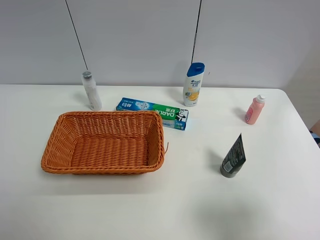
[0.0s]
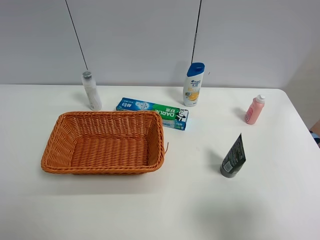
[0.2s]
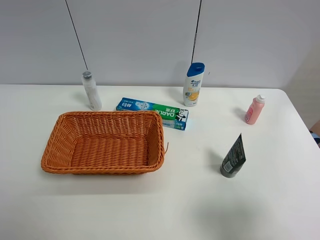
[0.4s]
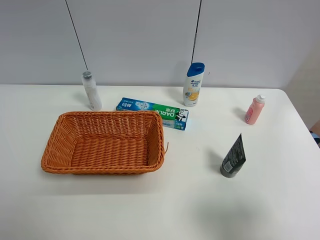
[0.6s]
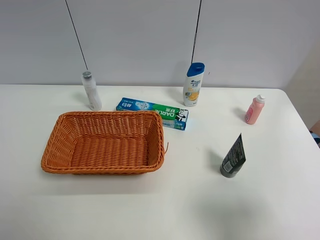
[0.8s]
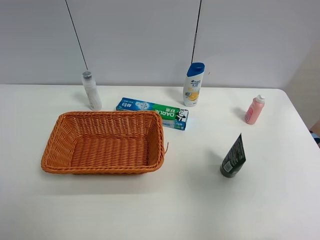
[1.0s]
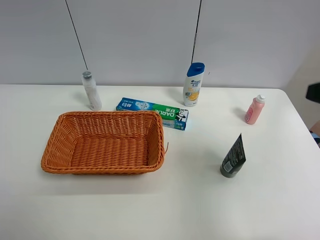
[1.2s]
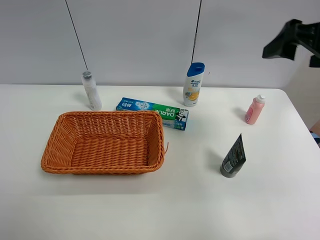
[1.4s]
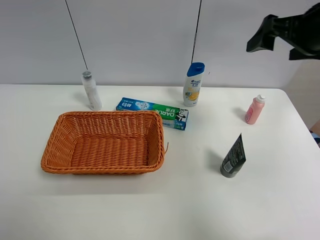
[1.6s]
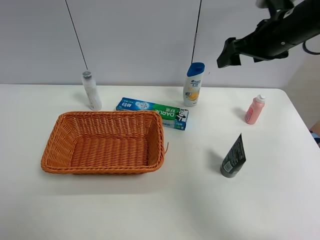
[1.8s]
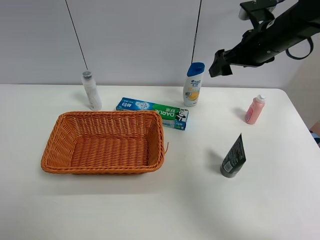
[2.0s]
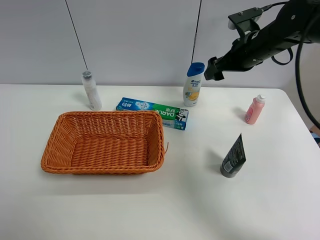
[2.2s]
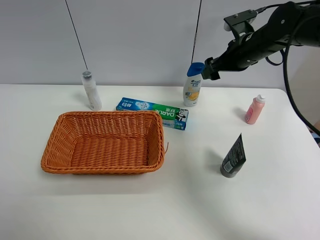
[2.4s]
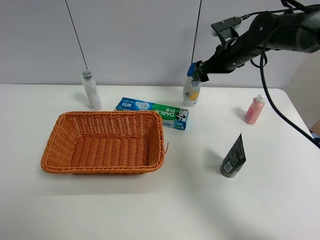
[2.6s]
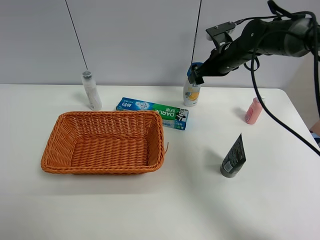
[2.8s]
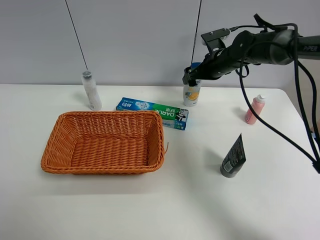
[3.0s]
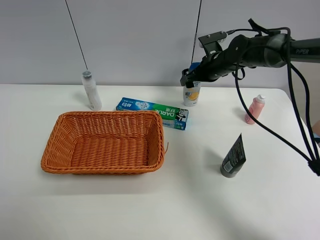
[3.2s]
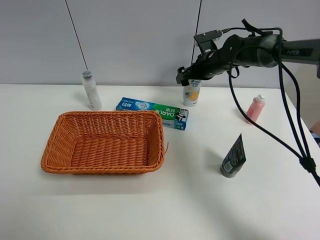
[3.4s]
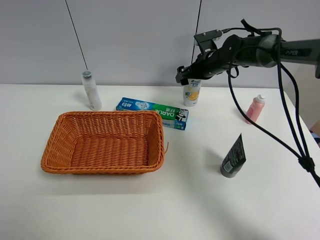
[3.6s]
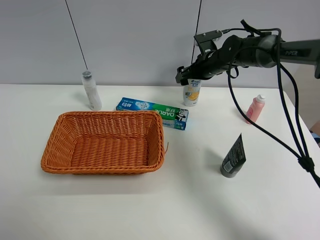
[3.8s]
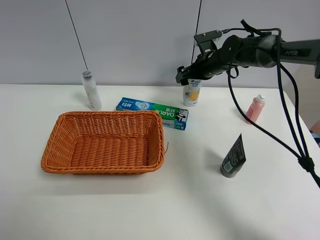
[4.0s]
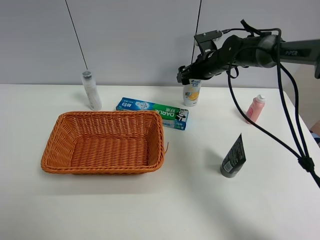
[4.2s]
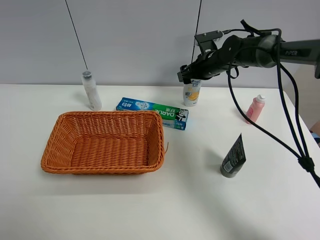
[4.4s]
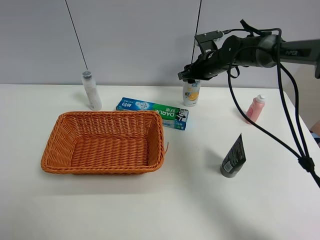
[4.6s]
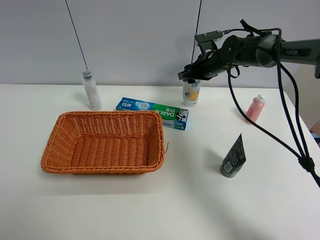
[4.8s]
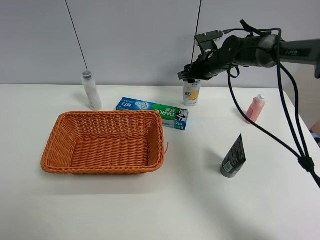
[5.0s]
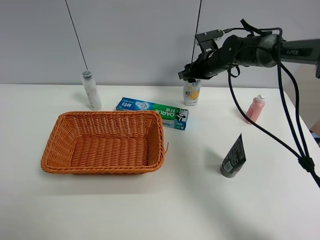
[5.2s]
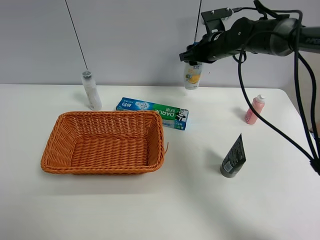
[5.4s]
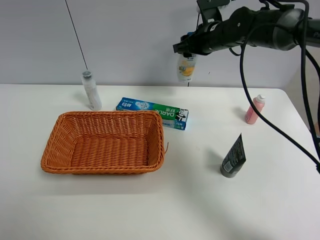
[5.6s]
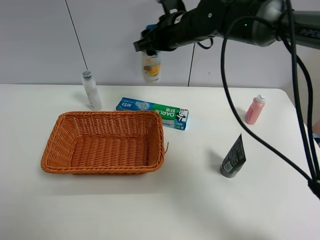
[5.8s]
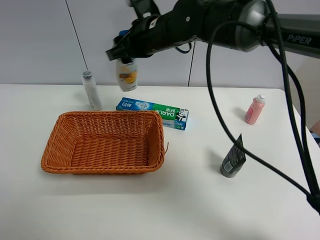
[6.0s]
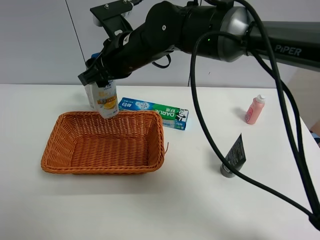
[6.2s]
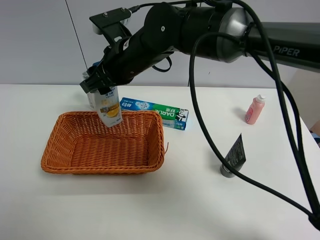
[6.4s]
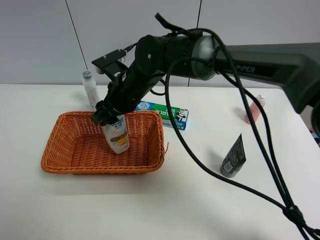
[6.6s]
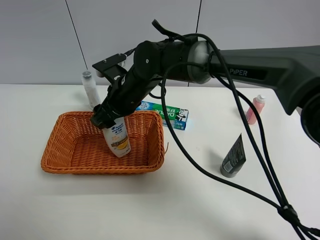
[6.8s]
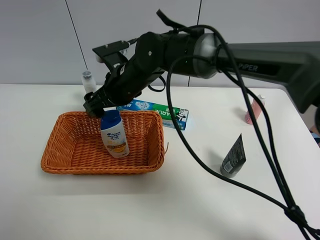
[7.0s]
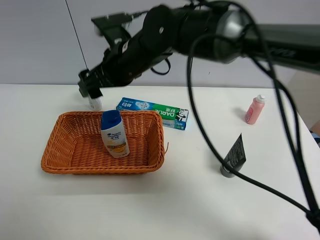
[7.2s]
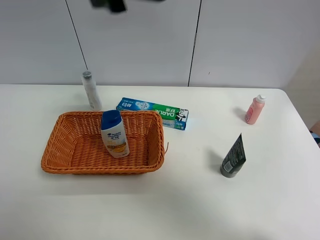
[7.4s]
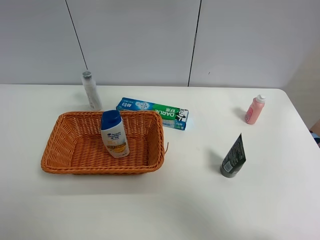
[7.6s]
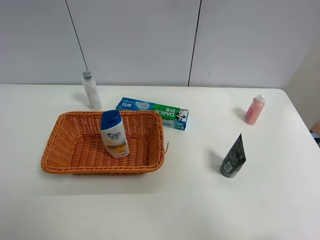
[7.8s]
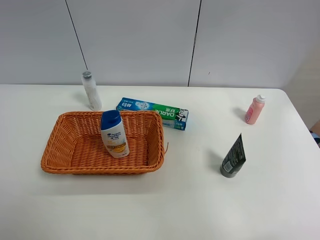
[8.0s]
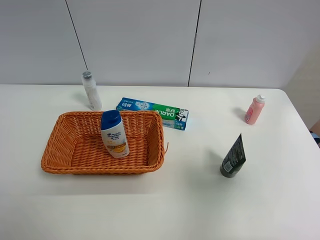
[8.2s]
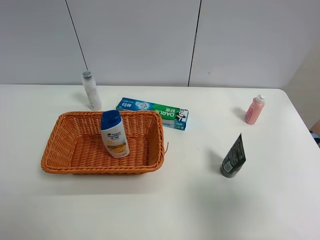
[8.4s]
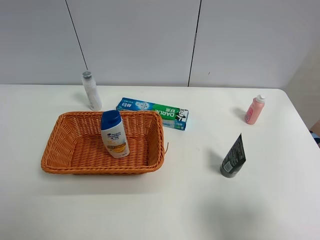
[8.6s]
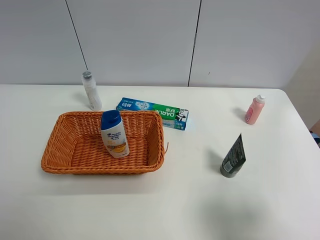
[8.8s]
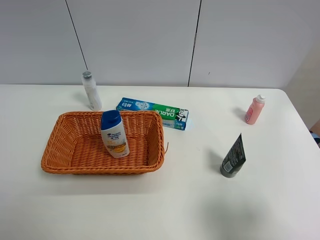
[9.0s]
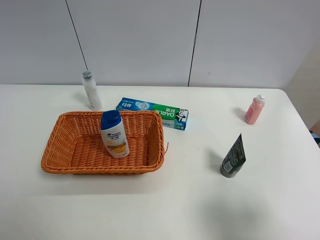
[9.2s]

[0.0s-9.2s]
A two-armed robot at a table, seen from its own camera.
Task of the whole recording: Place the object closest to the toothpaste in the basket.
Step, 0.0s to 5.0s: Grasp the shampoo with right gripper.
Step, 5.2s to 7.0s: Place the shampoo in the basket with right gripper.
0.0s to 1.6s: The right gripper heads forward, covering roughly 30 cm.
1.6s to 3.0s: The right gripper goes approximately 25 cm downward, forward and to the left.
3.0s to 4.6s: The right gripper closes its fingers.
4.6s to 6.2s: The right gripper goes approximately 25 cm to the left, backward and upward.
6.2s to 7.6s: The right gripper is displaced upward and to the right by about 25 cm, and opens.
7.6s to 9.2s: The right gripper travels backward, downward and to the right by approximately 35 cm.
